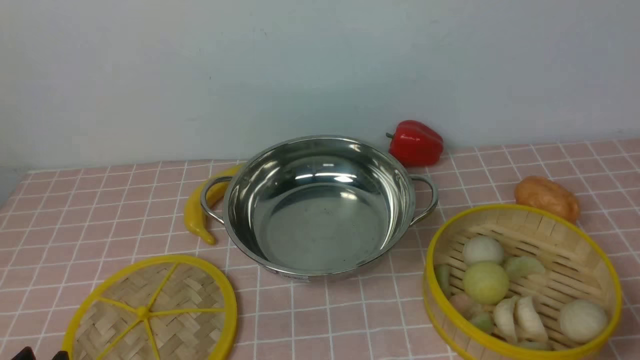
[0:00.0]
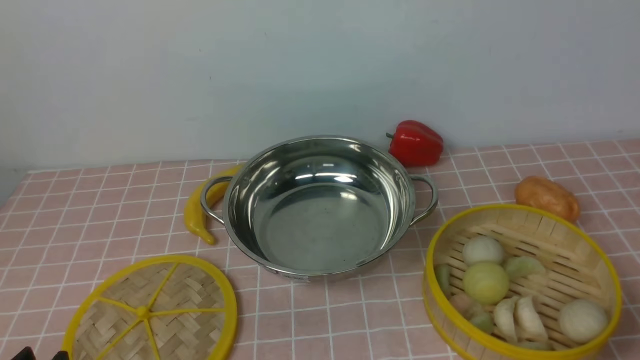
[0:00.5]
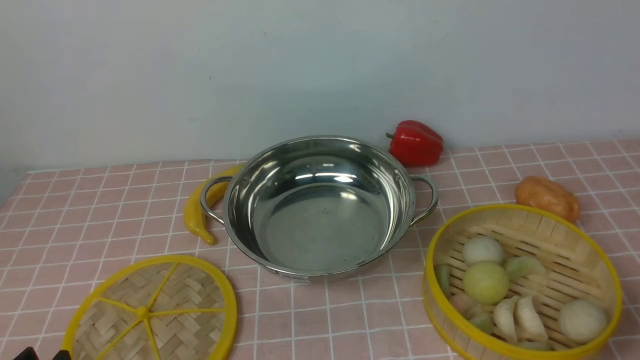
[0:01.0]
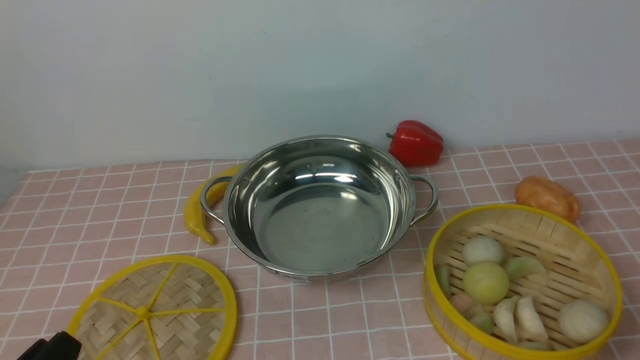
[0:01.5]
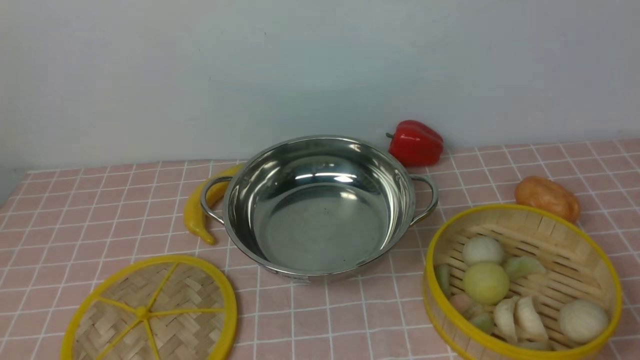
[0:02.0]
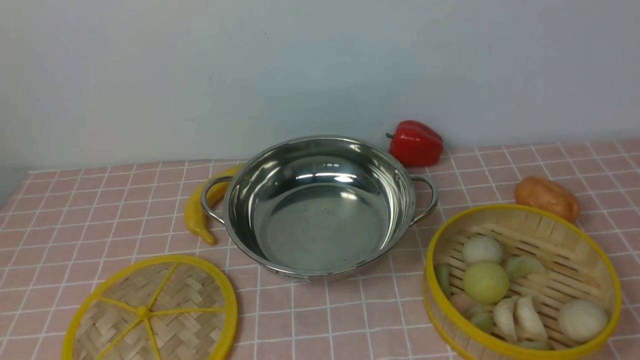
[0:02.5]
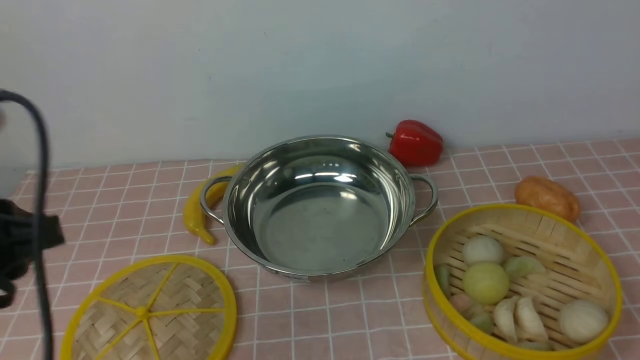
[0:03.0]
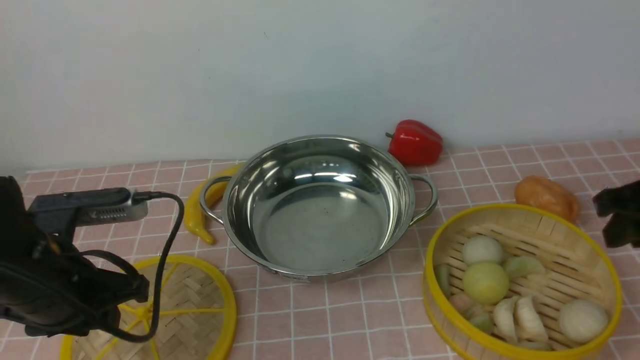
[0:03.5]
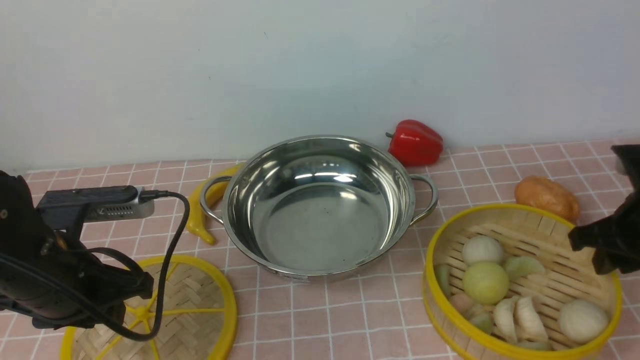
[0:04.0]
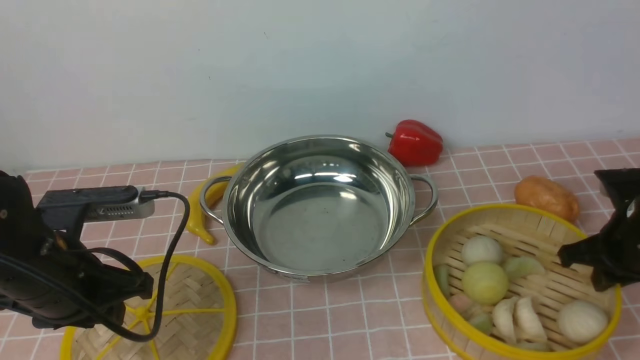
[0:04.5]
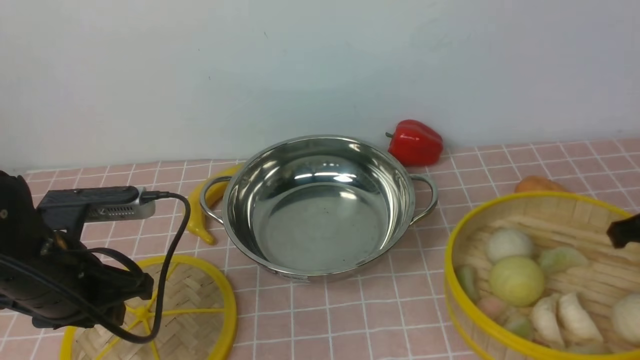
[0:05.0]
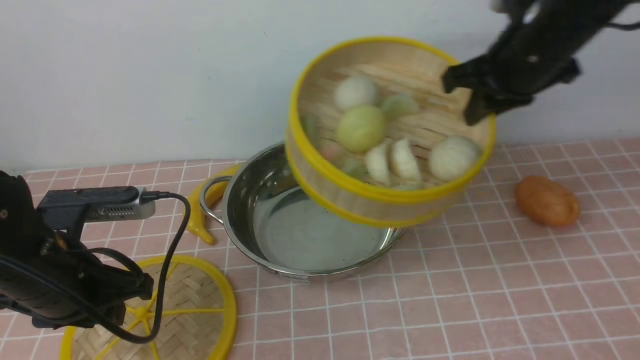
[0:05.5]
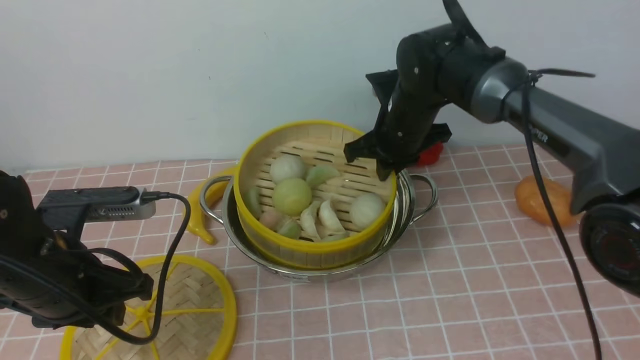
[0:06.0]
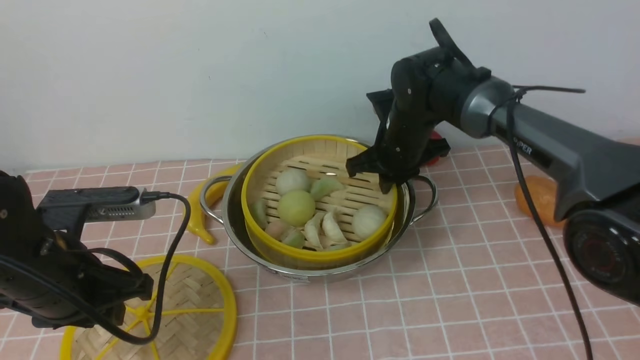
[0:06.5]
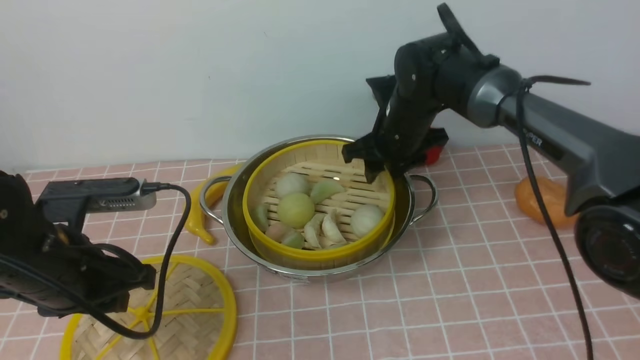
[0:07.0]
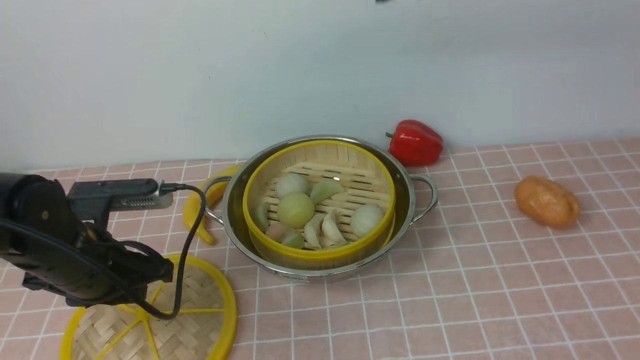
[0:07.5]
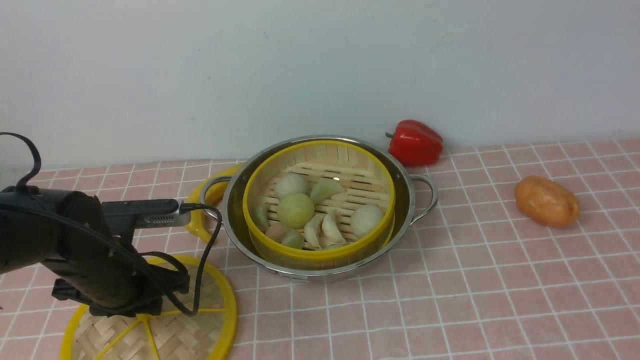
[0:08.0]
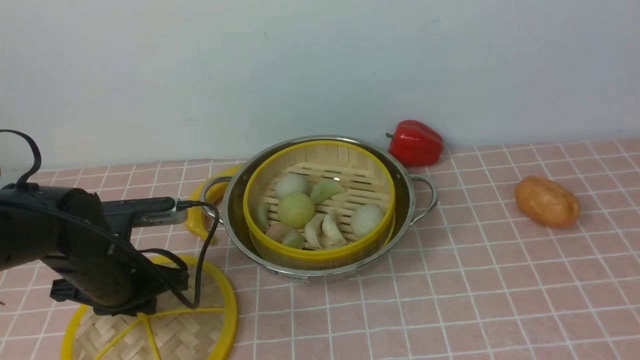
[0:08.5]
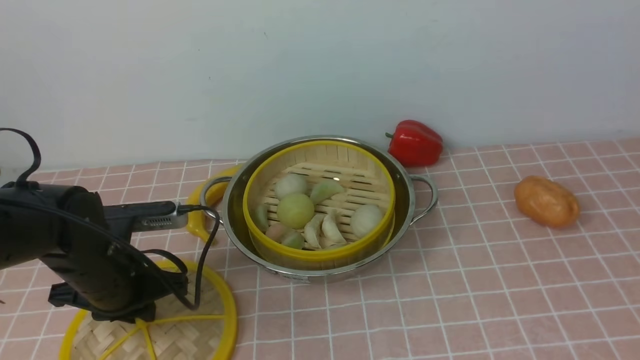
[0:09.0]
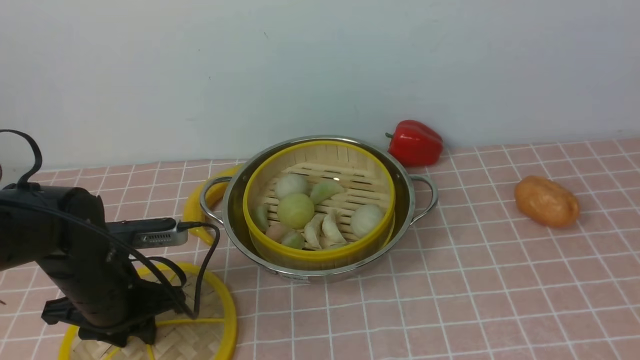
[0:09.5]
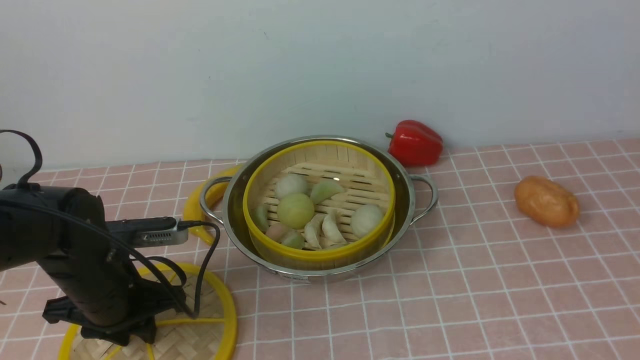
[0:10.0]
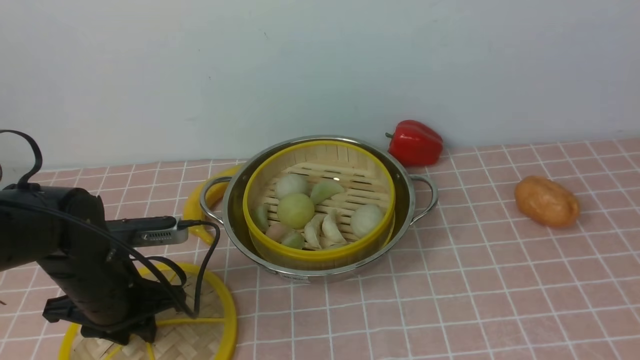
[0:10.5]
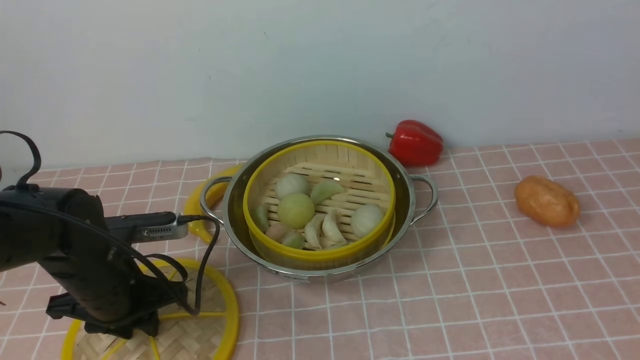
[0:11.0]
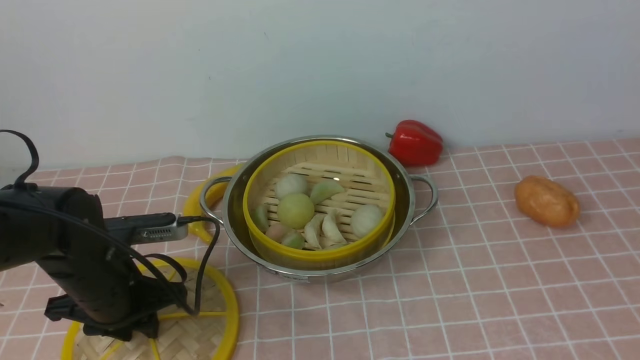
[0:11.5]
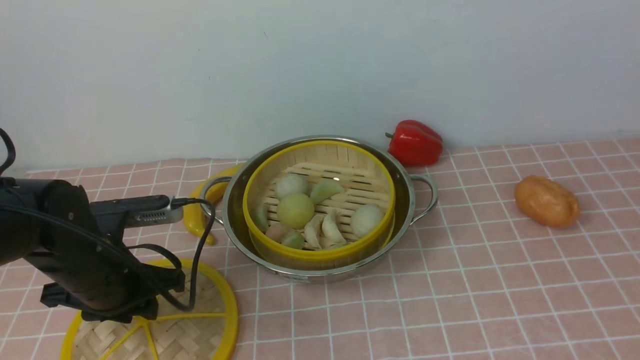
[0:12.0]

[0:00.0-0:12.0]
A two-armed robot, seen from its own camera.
Task of the whole recording: place the steamer in the pot on the pink tablecloth, and put the lid on the steamer.
Step, 0:00.0 to 0:04.5: use the right arm to lift the steamer closest to it.
Step, 0:05.0 to 0:07.0: use the right arm to put the steamer into the iron steamer pot in the middle.
0:02.0 to 0:04.0: The two grippers go some 25 cm forward.
0:04.0 to 0:06.0: The right gripper moves to the left and forward, some 25 cm, and closes.
0:06.0 to 0:08.0: The right gripper goes roughly 50 cm upward and backward, and opens its fingers, while the left gripper heads downward and forward, covering roughly 10 cm.
0:10.0 to 0:12.0: The grippers move only a little.

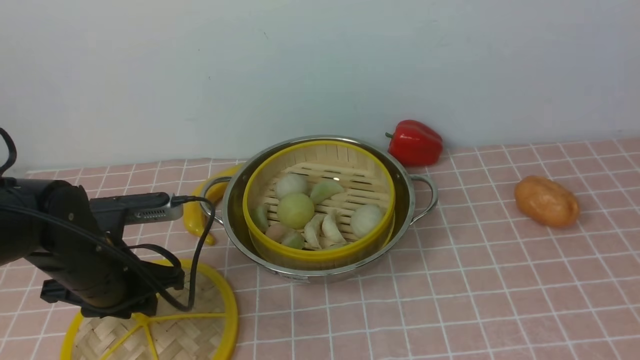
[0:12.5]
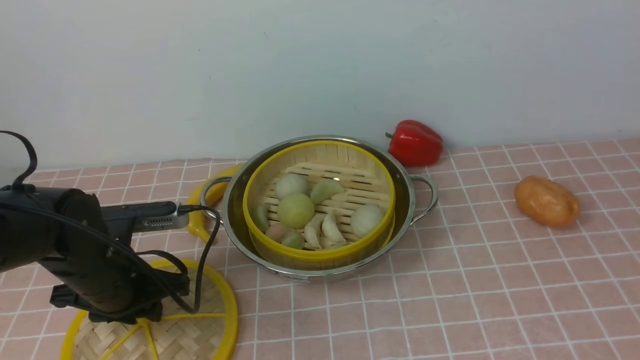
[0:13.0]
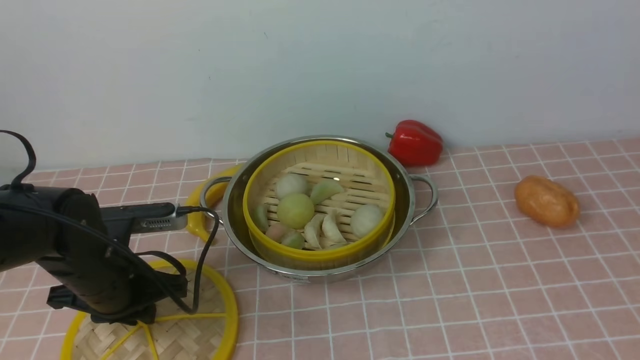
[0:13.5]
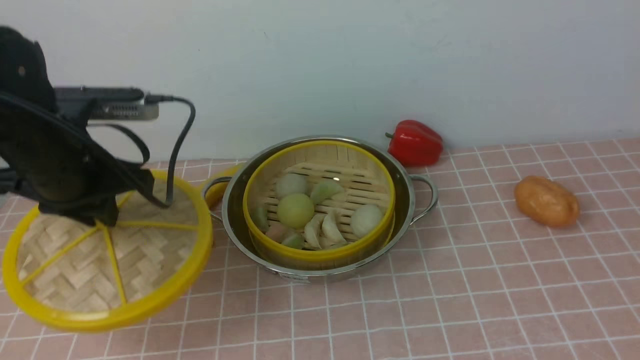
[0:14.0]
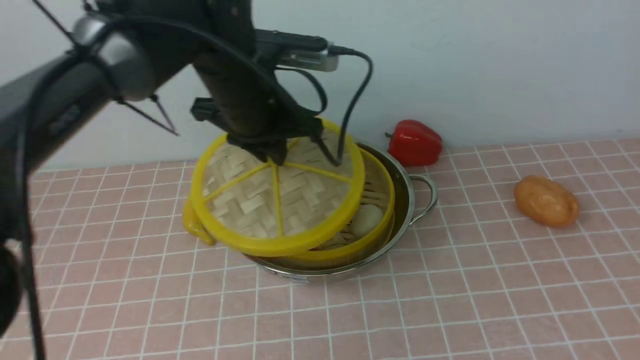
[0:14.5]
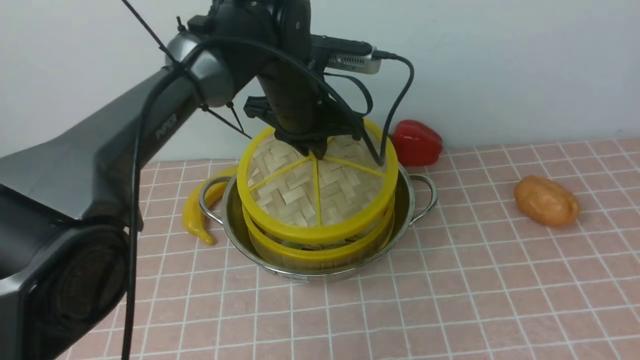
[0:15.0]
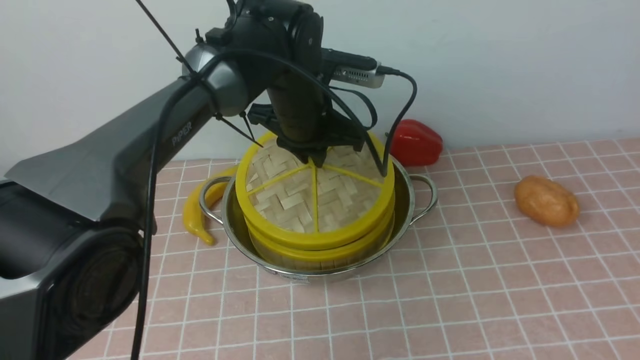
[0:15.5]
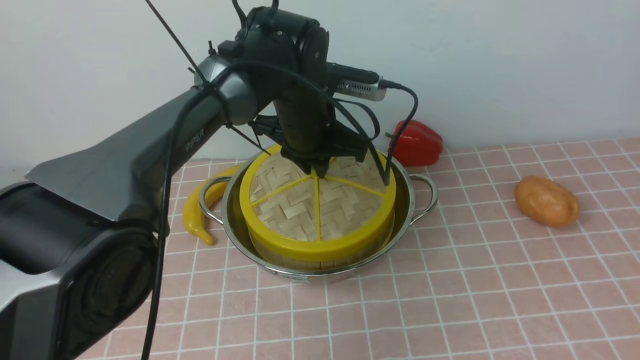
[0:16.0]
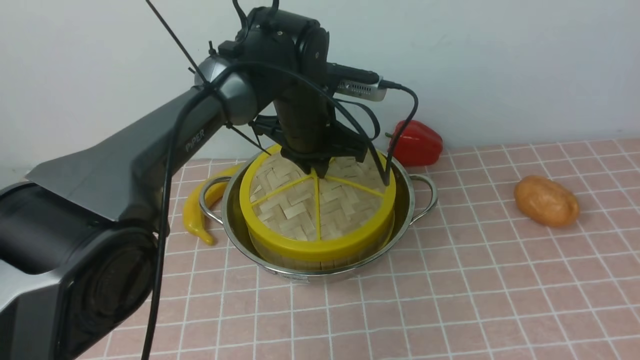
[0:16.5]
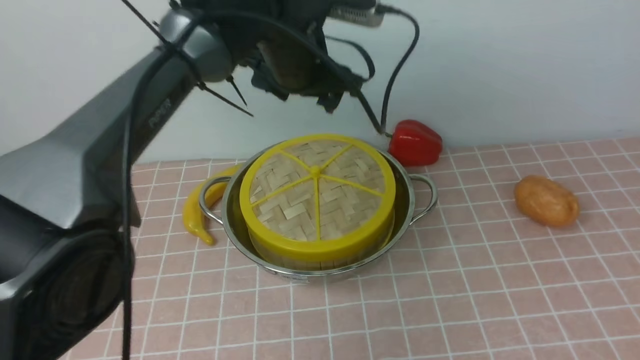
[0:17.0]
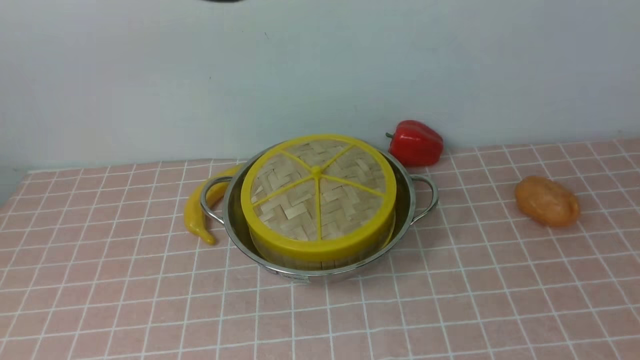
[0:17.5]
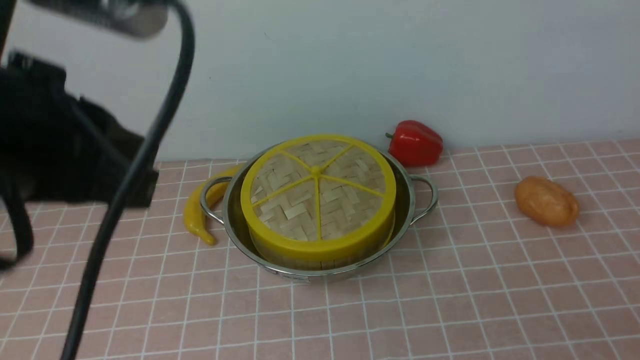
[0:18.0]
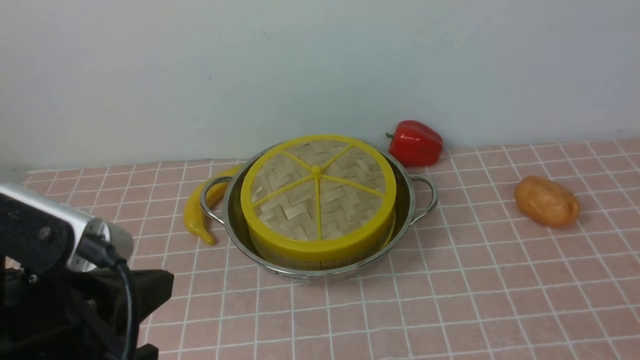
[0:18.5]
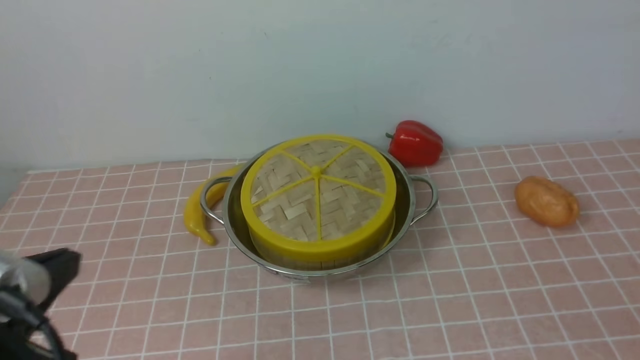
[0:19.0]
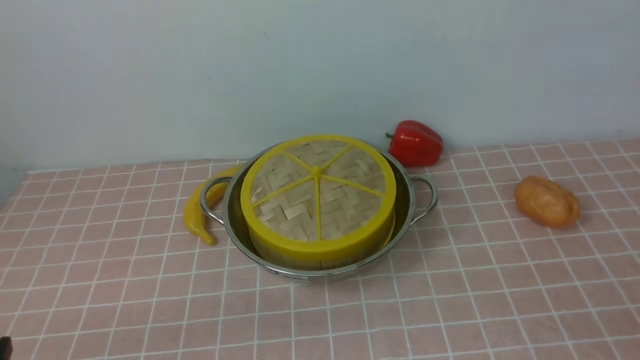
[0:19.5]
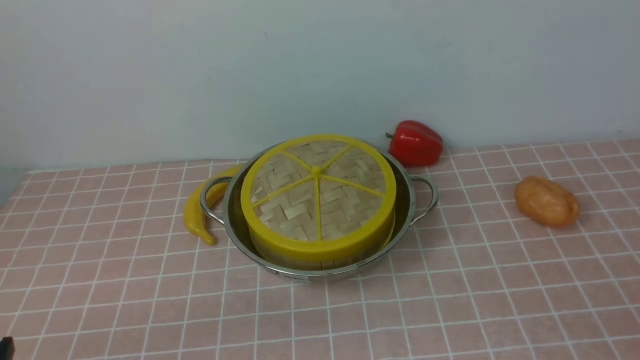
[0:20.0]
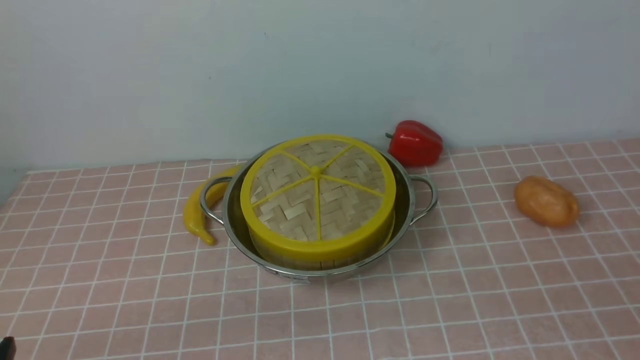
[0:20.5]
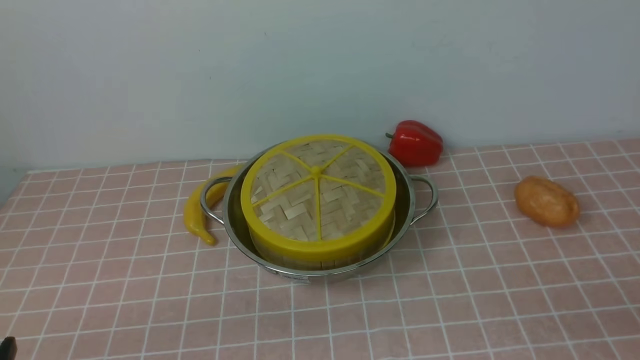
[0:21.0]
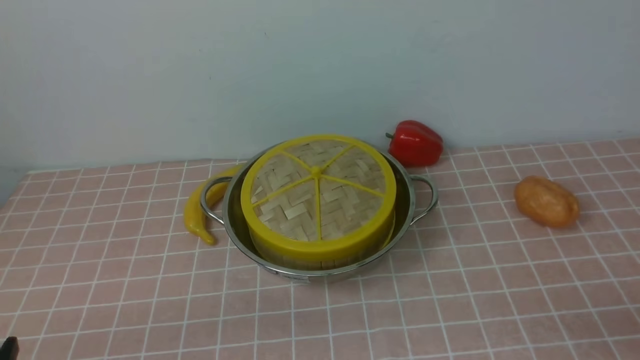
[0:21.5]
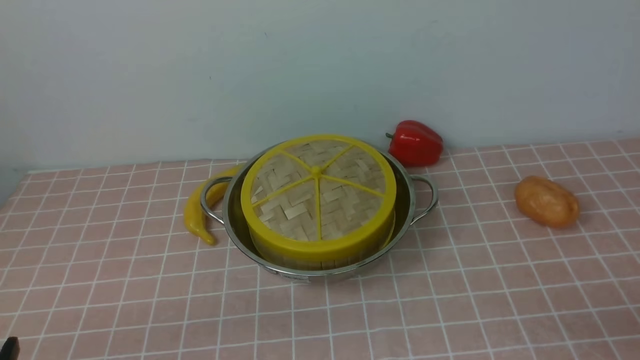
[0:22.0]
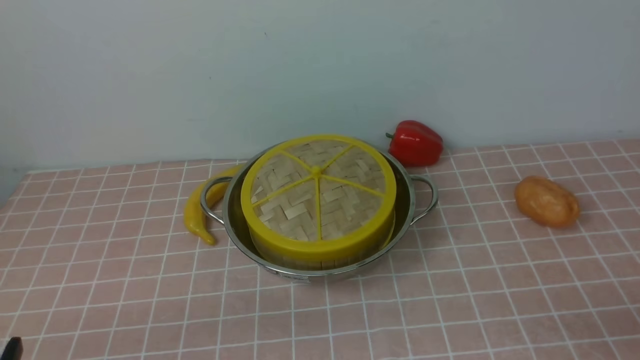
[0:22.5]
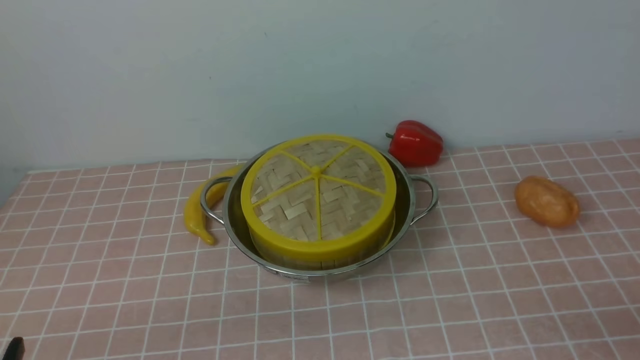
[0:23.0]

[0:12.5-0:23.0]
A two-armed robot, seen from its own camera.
Task of the whole recording: place the steamer in the pot on the pink tablecloth, and put the lid on the steamer.
Step, 0:14.0 to 0:16.5: use the left arm to place the steamer lid on the steamer.
0:12.5 to 0:14.5: The left gripper shifts about 25 cm to the right, forward and upward.
0:14.5 to 0:16.5: The left gripper heads downward and to the right, covering roughly 10 cm.
0:16.5 to 0:19.0: The left gripper heads backward and to the left, covering approximately 40 cm, and closes. Meanwhile the right gripper moves downward, roughly 25 cm.
0:19.0 to 0:21.0: The left gripper travels downward by some 10 cm.
